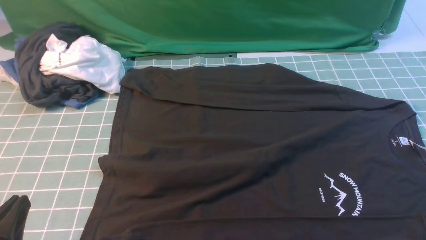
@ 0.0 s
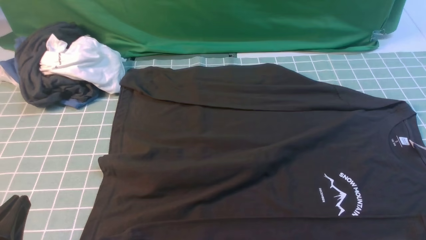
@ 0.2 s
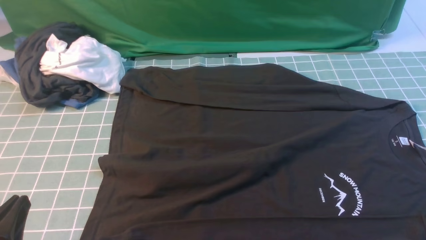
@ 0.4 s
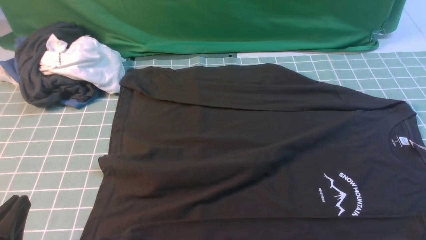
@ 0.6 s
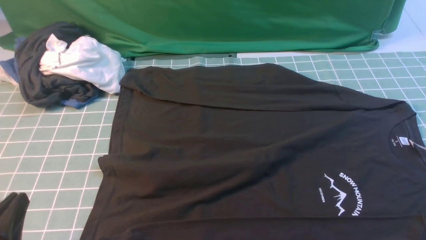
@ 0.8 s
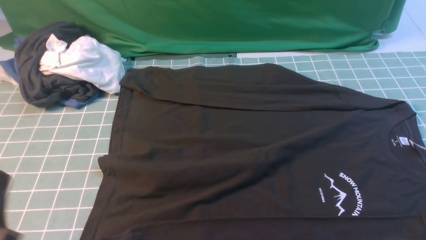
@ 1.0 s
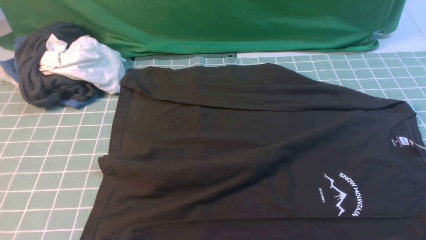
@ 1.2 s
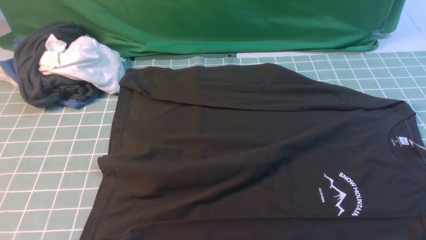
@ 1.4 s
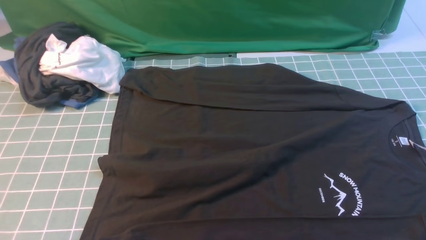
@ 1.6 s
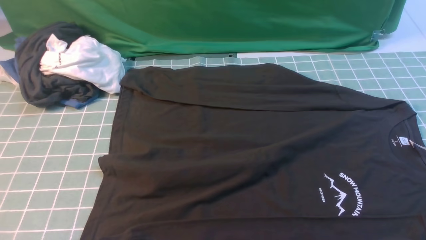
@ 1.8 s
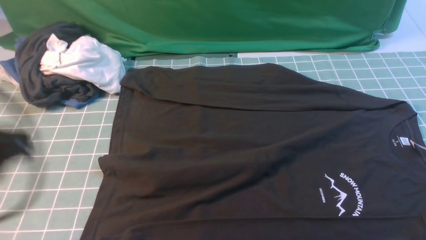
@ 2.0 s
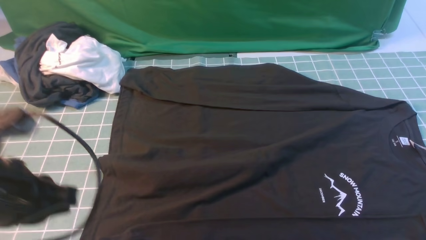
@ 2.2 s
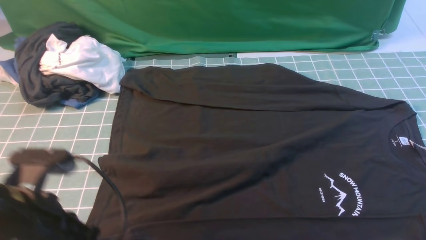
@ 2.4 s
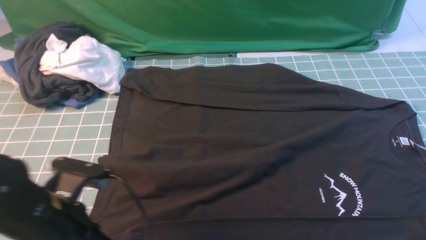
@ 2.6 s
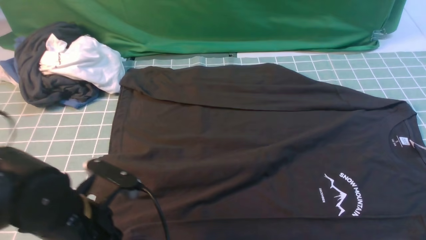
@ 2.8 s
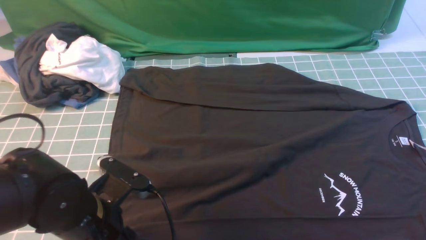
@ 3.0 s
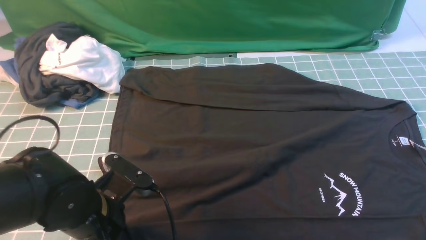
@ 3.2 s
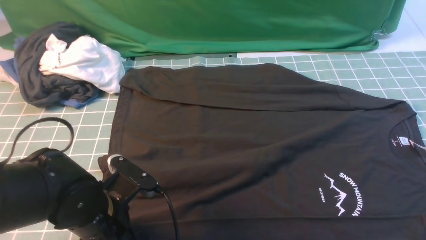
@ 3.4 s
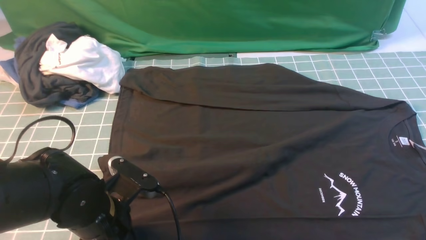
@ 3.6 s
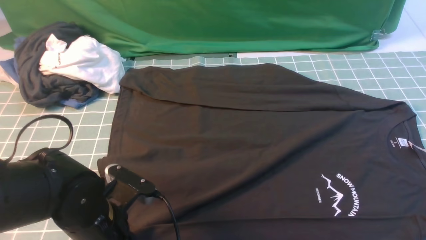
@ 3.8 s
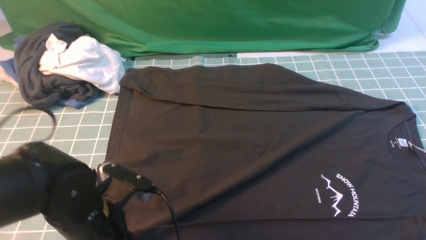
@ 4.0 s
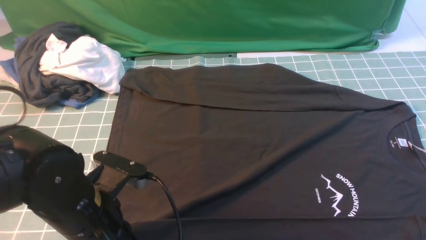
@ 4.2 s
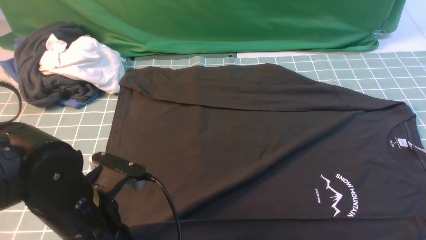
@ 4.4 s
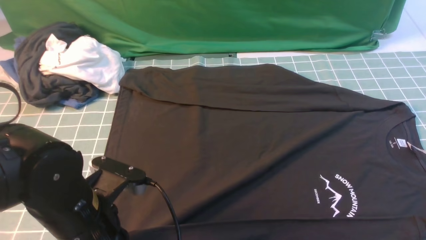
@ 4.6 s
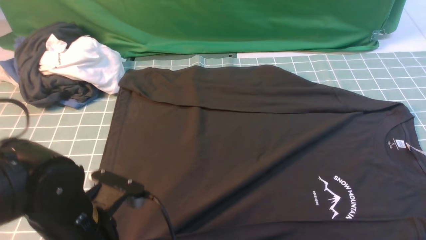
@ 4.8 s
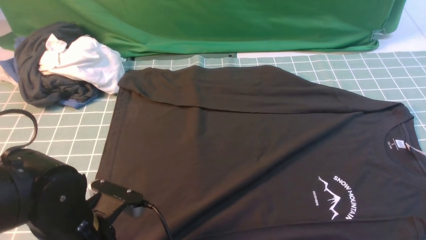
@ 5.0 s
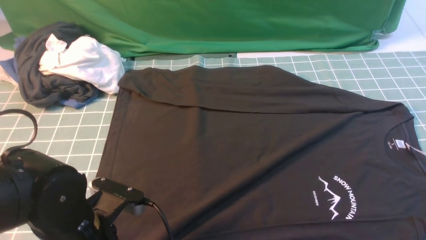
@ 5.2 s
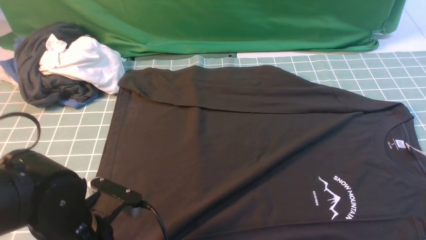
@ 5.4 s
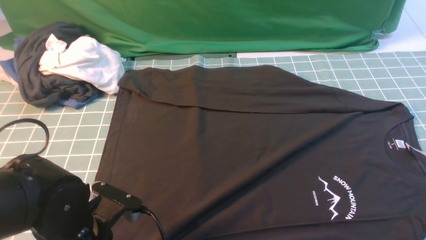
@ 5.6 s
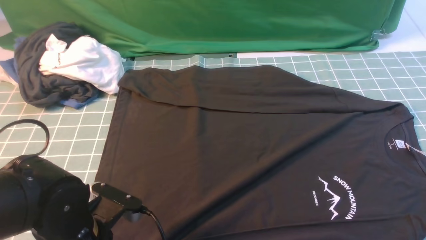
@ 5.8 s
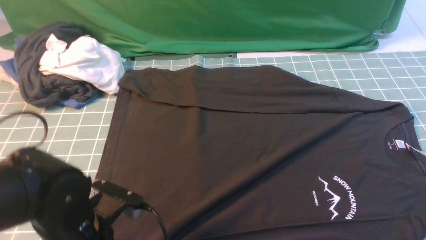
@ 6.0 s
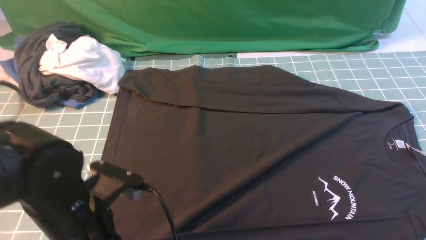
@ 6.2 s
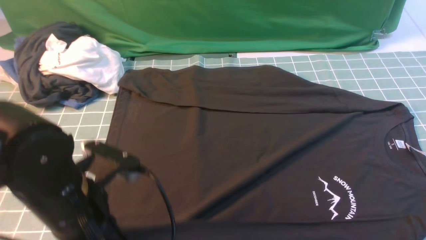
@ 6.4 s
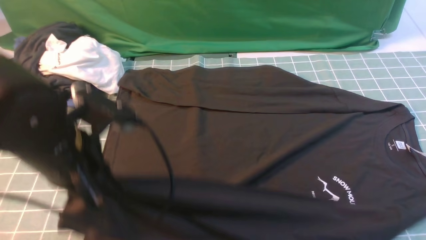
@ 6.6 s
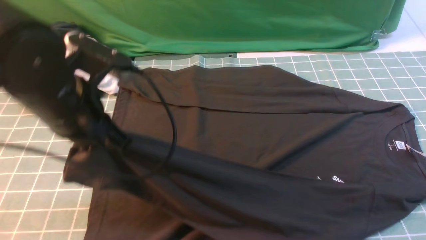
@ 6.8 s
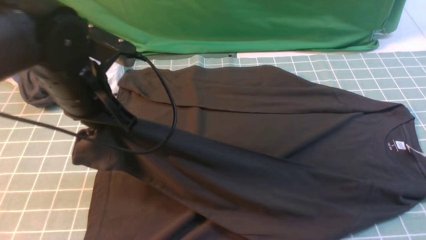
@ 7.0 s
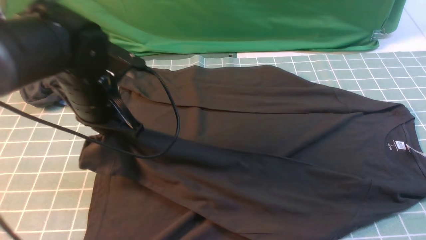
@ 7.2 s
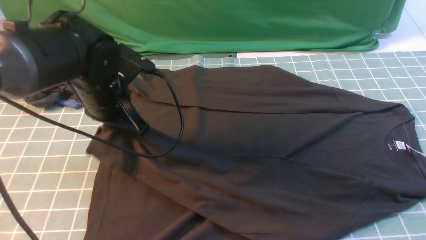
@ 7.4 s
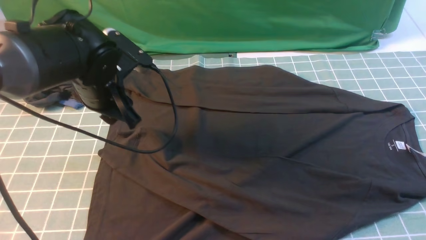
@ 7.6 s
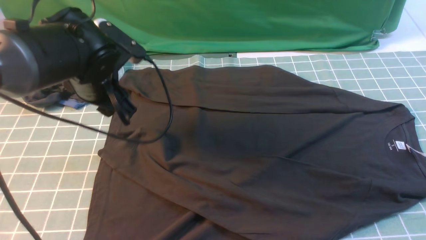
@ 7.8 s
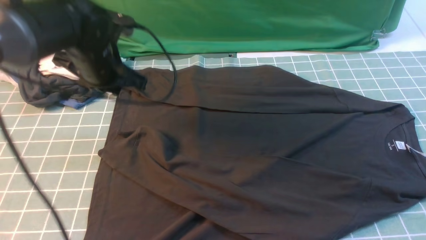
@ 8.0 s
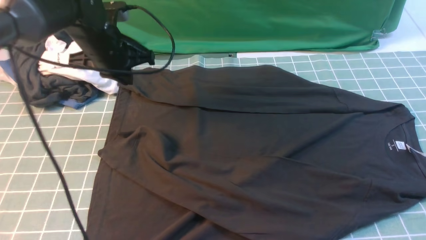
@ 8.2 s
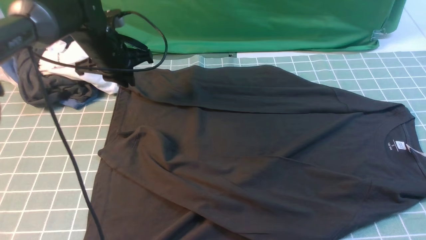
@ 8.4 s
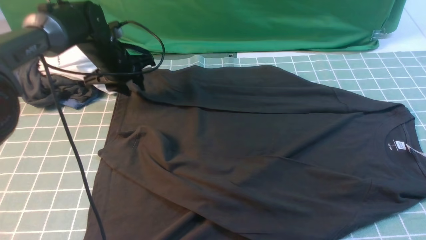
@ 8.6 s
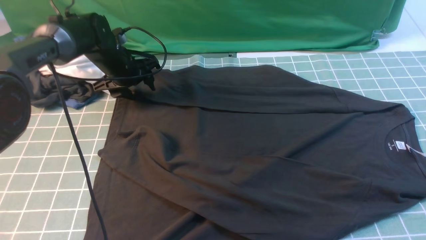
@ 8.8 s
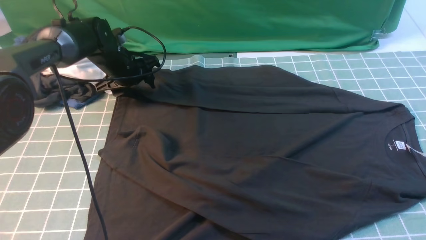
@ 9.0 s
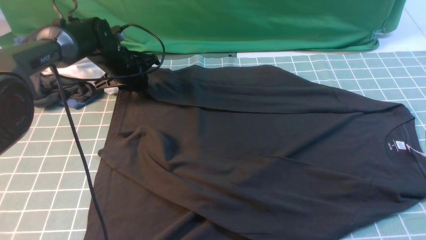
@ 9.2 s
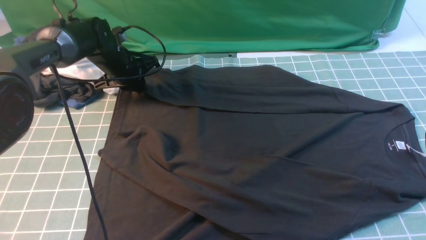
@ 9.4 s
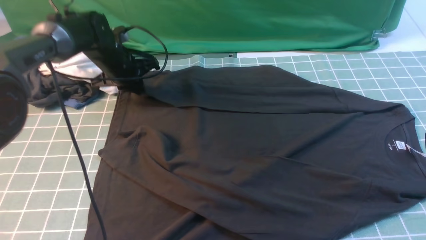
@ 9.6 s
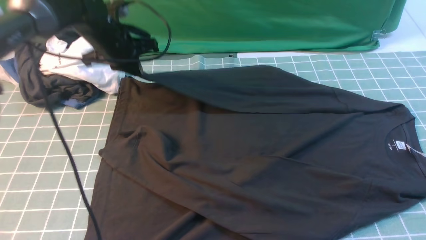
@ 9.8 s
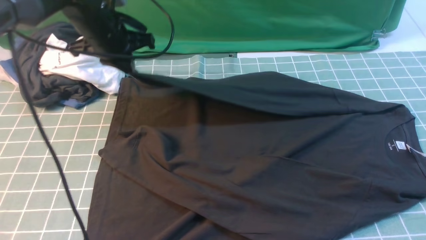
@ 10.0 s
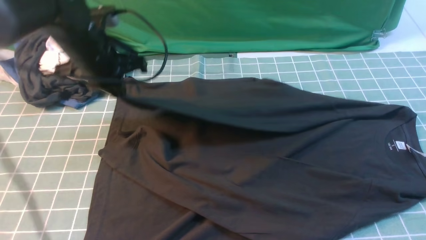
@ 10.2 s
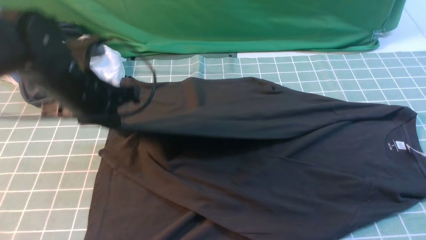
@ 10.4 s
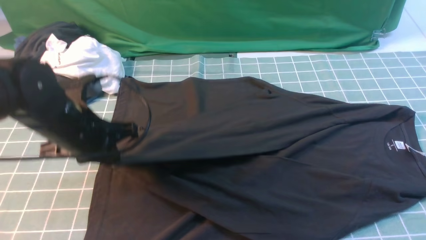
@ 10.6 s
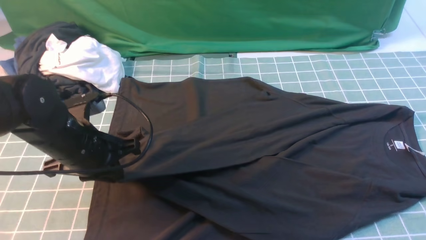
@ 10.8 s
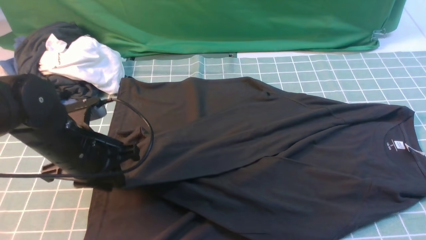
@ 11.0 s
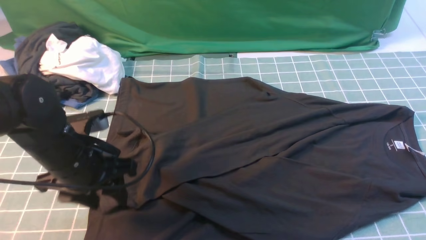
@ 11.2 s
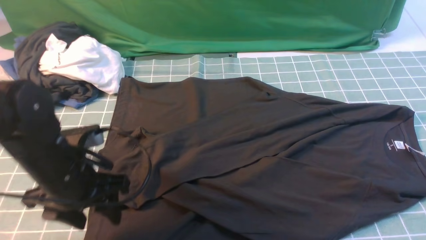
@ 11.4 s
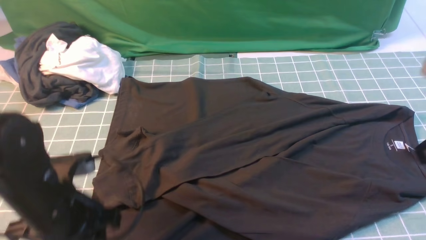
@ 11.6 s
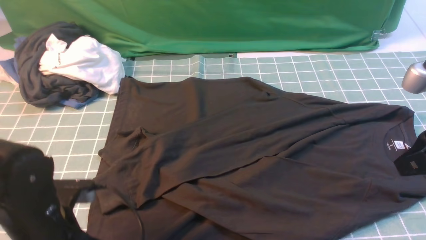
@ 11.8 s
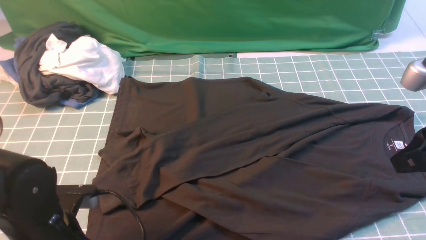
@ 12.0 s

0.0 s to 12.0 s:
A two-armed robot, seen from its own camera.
Step, 0.0 to 6.0 s: use the left arm to clamp the cuff closest to it.
Step, 6.2 to 7.6 s: use the left arm to drag and place the cuff at the centered position on the left edge of the fabric.
Step, 7.8 to 9.2 s: use the left arm to clamp the cuff farthest from it.
Step, 9.4 to 11.6 s: use the left arm to drag and drop the cuff onto the cuff closest to the left arm.
0.0 to 1.6 s: The left gripper moves upward, about 15 cm.
1.6 to 3.0 s: The left gripper travels downward, forward and to the right by roughly 25 cm, and opens its fingers.
3.0 to 4.4 s: The left gripper closes its fingers.
4.4 to 6.0 s: The left gripper opens and closes again.
6.0 to 7.6 s: The left gripper heads forward, covering about 20 cm, and opens up.
7.6 to 9.0 s: The left gripper travels forward and downward by about 20 cm, and closes and opens again.
9.0 to 10.4 s: The left gripper moves backward and upward, approximately 20 cm, and closes up.
10.4 to 12.0 s: The right gripper shifts approximately 5 cm forward; the left gripper heads backward and downward, covering about 20 cm, and opens its fingers.

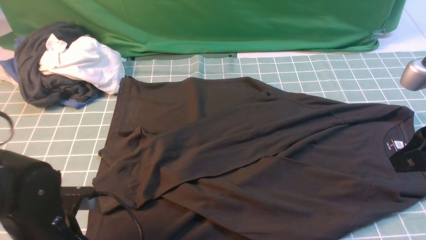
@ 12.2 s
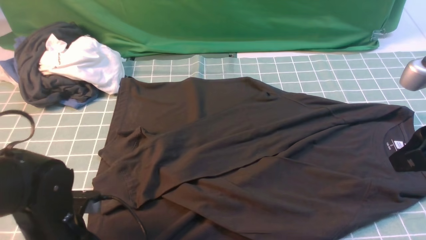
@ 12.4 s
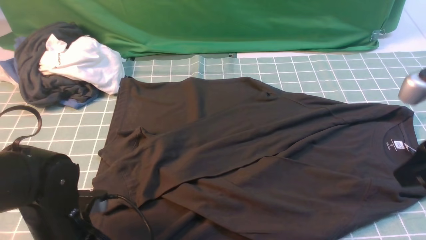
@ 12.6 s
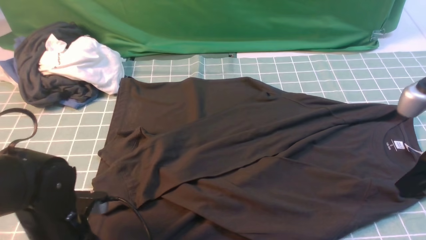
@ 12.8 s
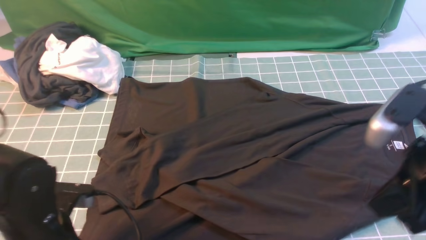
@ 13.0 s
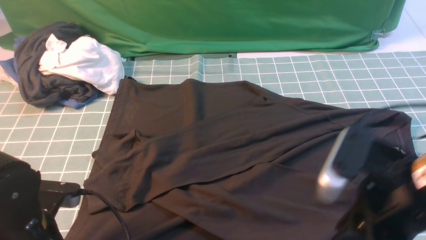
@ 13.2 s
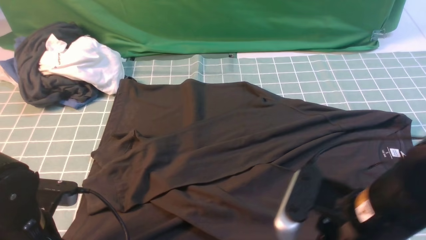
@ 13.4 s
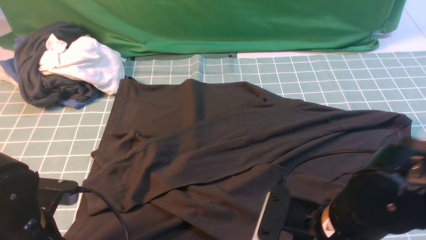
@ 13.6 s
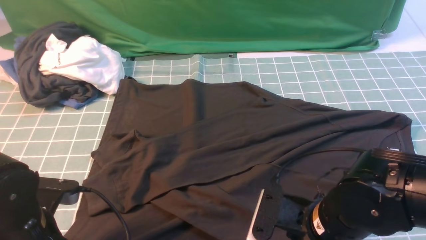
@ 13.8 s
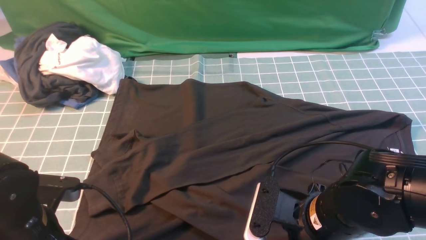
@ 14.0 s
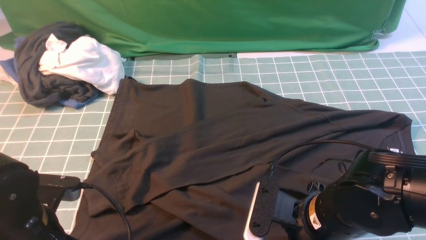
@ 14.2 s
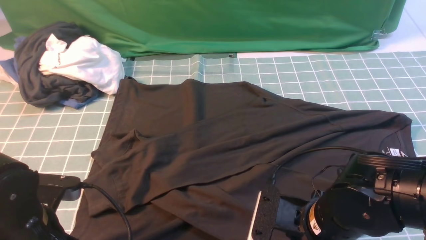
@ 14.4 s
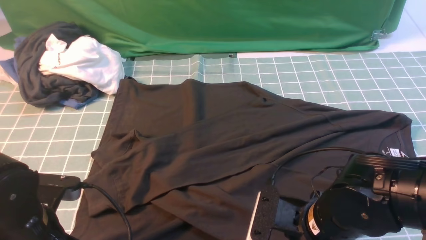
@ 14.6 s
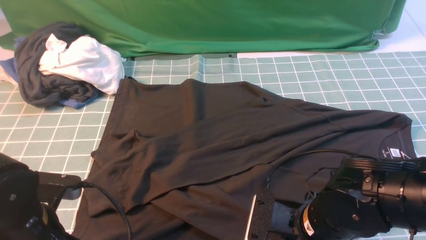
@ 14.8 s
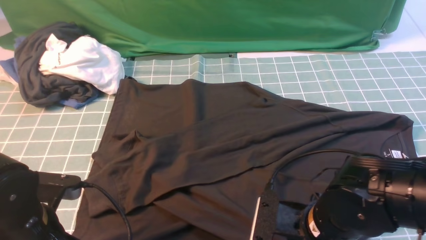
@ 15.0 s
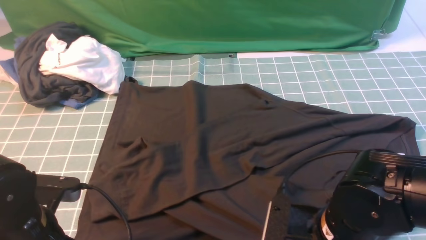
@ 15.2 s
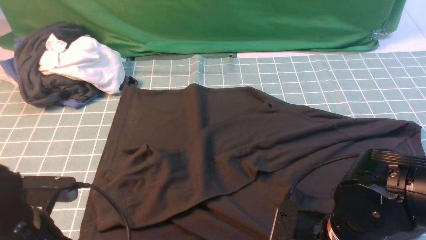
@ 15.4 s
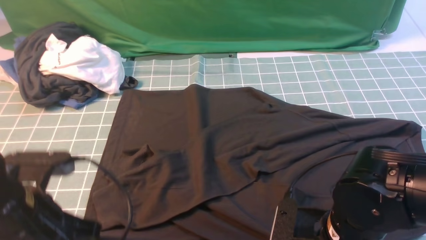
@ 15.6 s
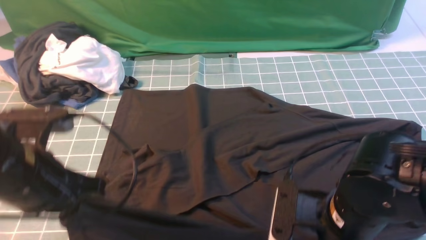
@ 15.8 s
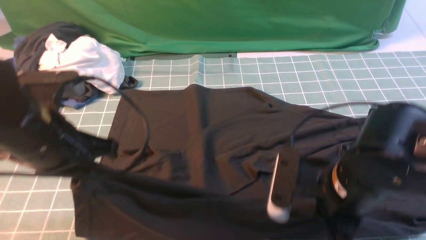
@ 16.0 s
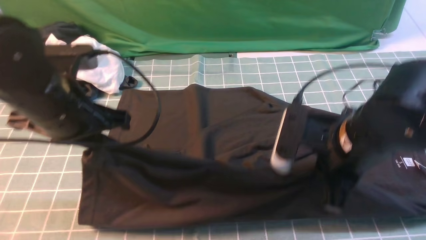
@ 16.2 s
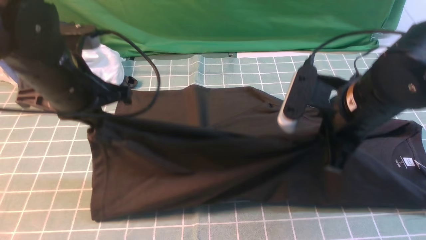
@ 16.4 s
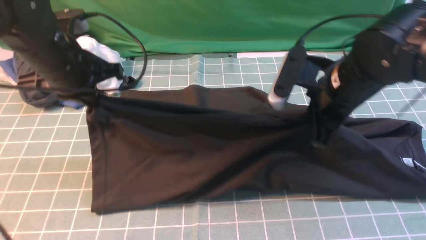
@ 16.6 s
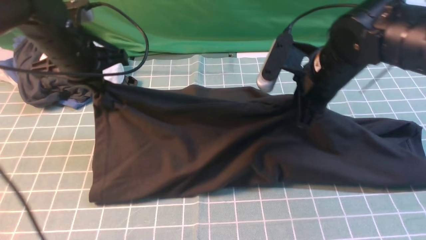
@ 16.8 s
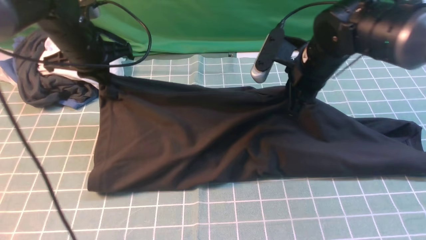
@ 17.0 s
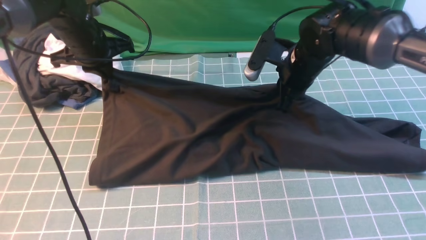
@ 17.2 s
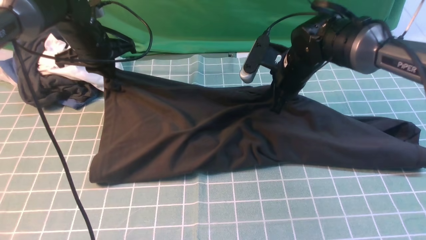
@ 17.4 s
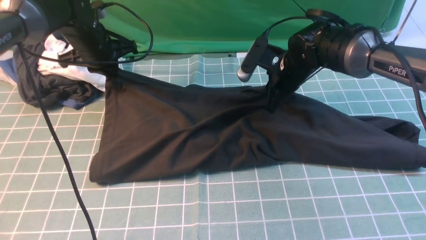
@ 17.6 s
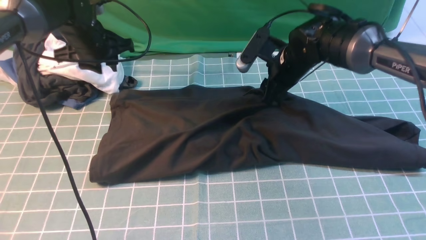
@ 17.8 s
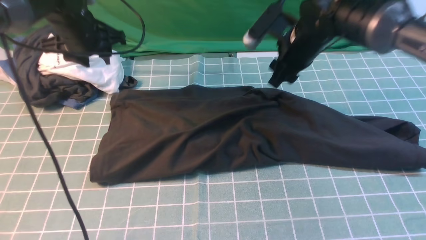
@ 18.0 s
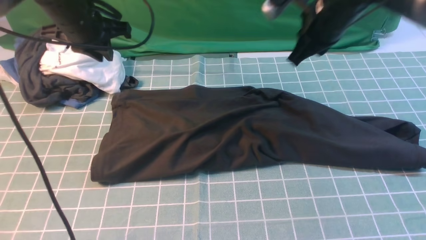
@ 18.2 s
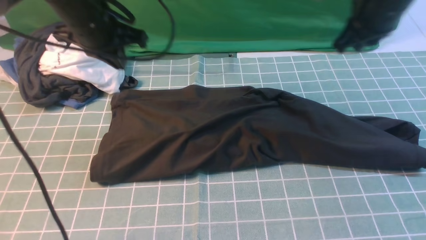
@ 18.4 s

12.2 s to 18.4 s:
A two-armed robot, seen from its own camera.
Step, 12.2 to 15.2 s: use both arms simultaneously to clamp the lower edge of the clothing fabric.
Step, 15.4 to 17.8 s: use both arms to drag the lower edge of the fabric forward and fold it over the upper edge.
12.2 to 13.8 s: The left gripper closes; the right gripper shifts approximately 20 cm to the left and downward, and opens.
13.8 to 15.4 s: The right gripper closes.
15.4 to 16.8 s: The two grippers go approximately 20 cm forward.
16.8 to 18.4 s: The left gripper travels forward and back again, approximately 10 cm each way, and opens and closes again. The right gripper travels to the right and upward by approximately 10 cm, and opens, then closes once more.
